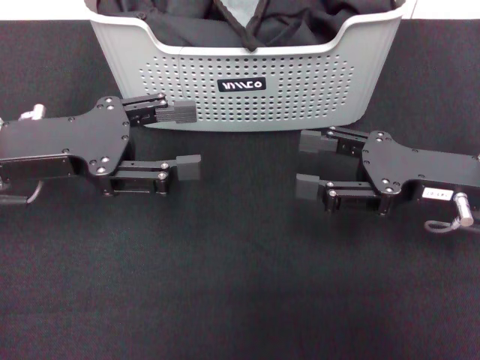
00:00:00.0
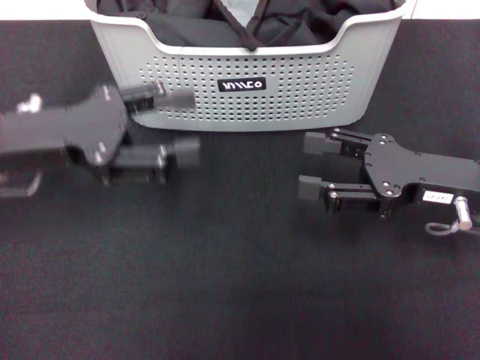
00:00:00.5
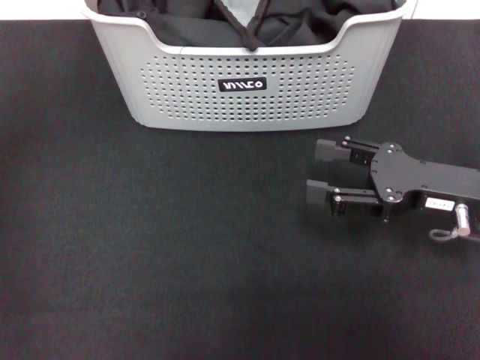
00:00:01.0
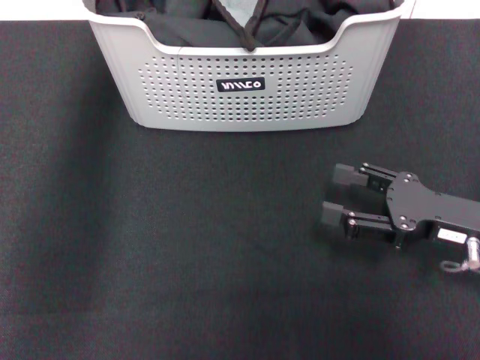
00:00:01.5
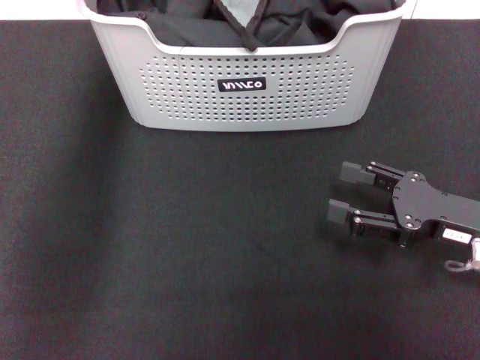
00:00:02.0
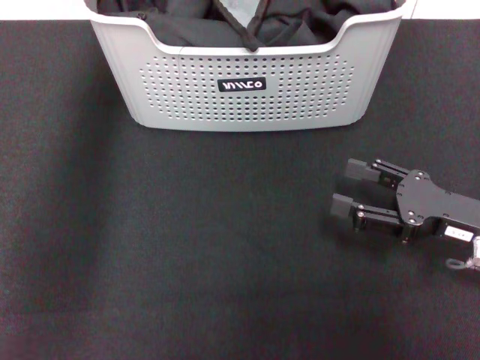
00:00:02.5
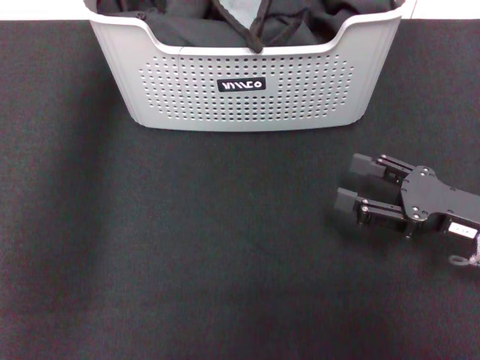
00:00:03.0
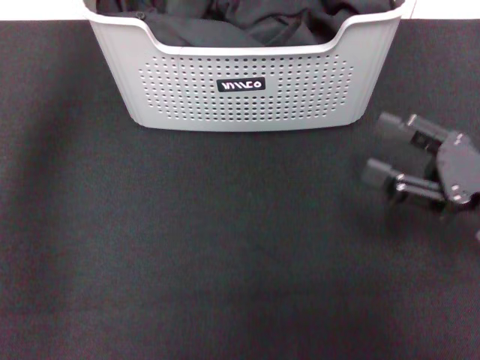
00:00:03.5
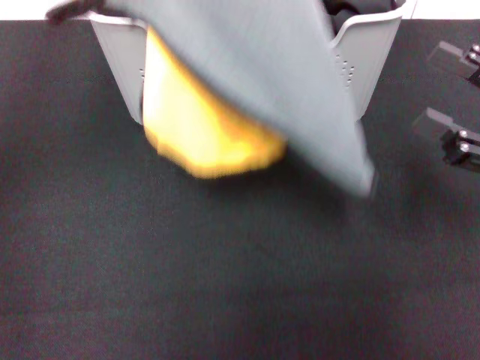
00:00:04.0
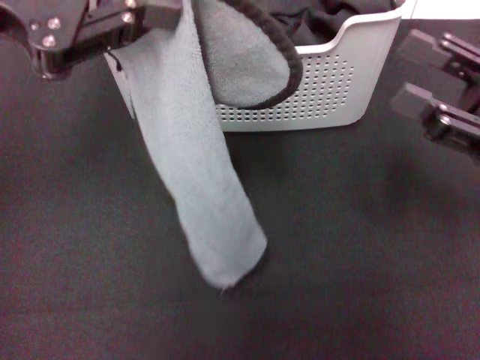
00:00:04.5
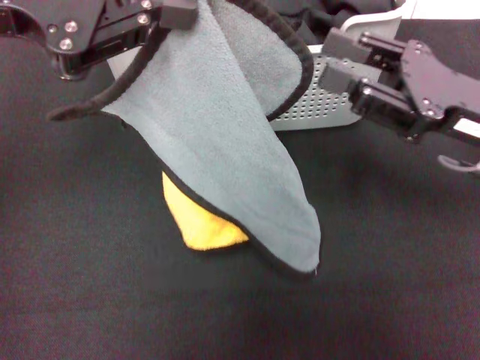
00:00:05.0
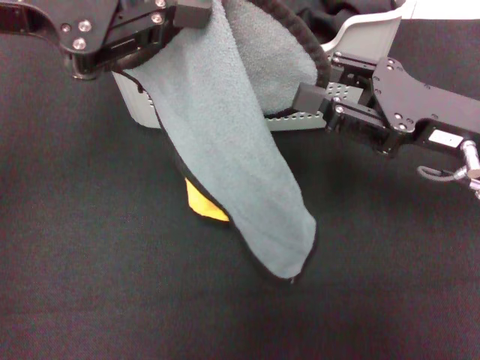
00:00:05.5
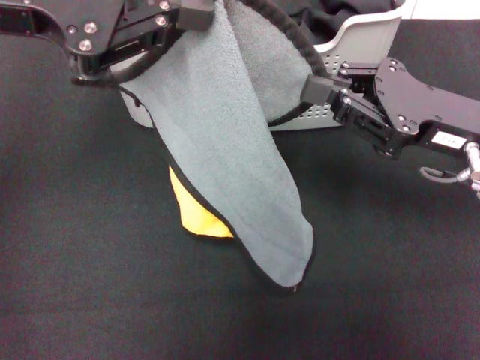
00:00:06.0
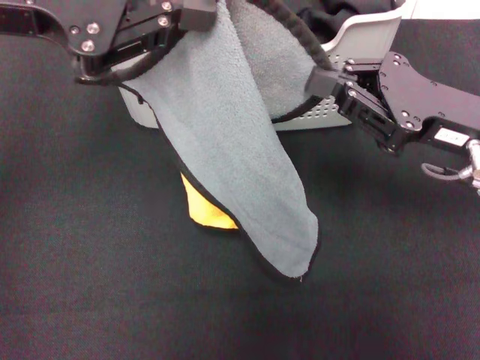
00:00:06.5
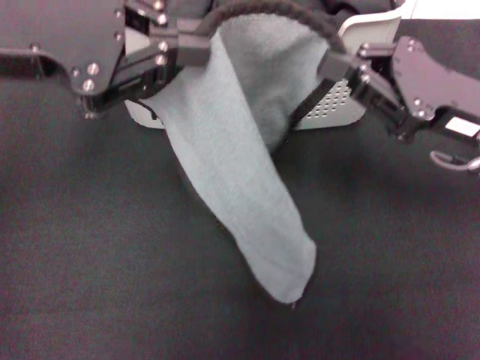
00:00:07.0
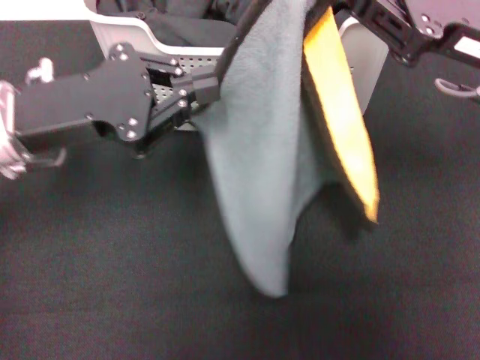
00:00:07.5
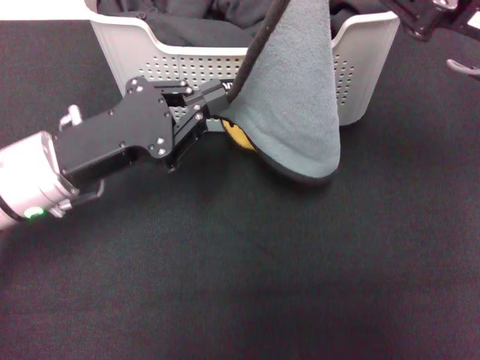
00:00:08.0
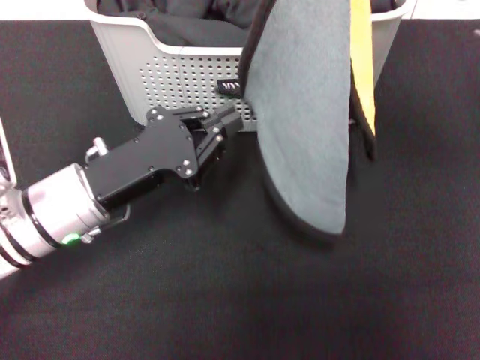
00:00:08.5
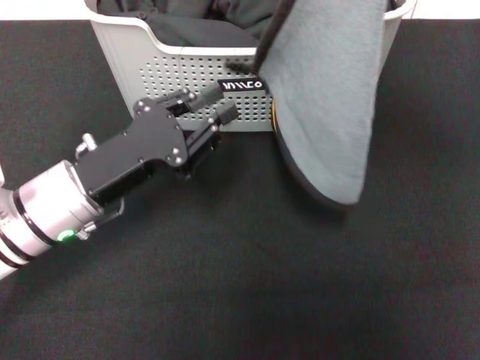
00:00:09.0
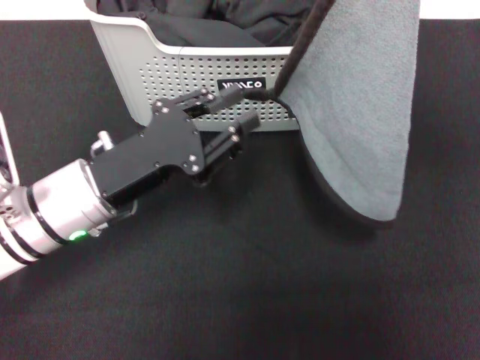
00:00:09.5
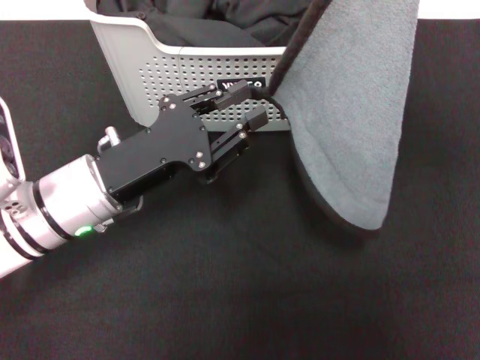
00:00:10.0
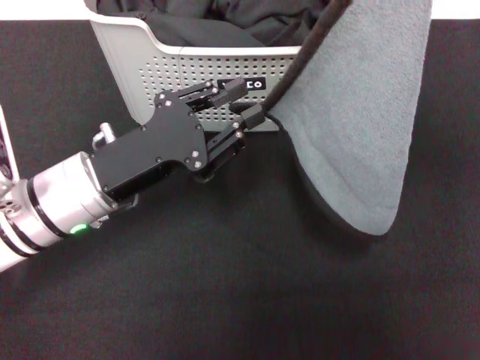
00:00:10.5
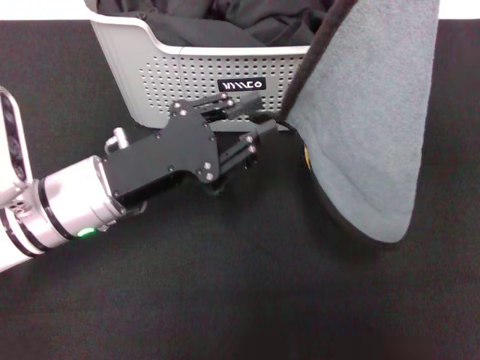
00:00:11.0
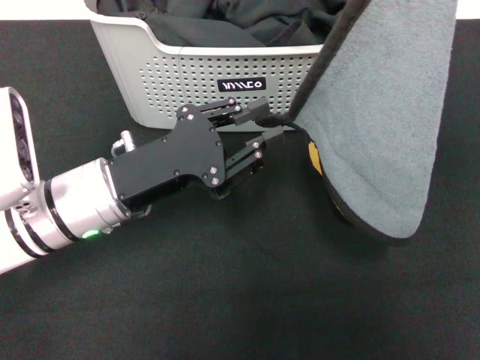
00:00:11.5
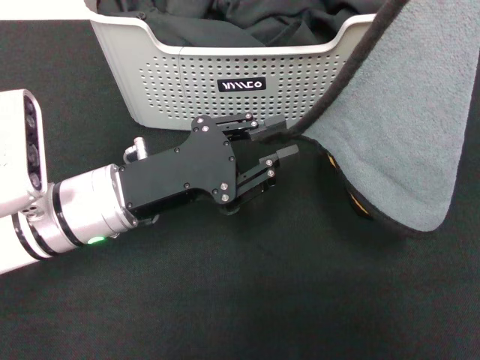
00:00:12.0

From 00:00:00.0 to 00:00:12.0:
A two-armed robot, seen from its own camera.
Task of the whole recording: pick up the towel from the storage box and lay it flat on the black tablecloth.
Step, from 00:00:00.0 to 00:00:03.0: Pick up a towel with the left gripper.
Step, from 00:00:03.5 to 00:00:06.5: Spread the towel flat with the left gripper.
From 00:00:00.0 to 00:00:02.0: The right gripper shifts by about 5 cm. Meanwhile the left gripper shifts approximately 25 cm forward, to the right and upward.
From 00:00:02.0 to 00:00:04.0: The left gripper moves backward, upward and to the left, about 25 cm, and closes. The right gripper moves upward, roughly 5 cm.
From 00:00:04.0 to 00:00:06.0: The left gripper heads downward, covering about 5 cm. Meanwhile the right gripper travels to the left by approximately 10 cm, and closes up.
From 00:00:06.0 to 00:00:08.0: The left gripper travels downward by some 20 cm; the right gripper goes roughly 5 cm upward.
From 00:00:08.0 to 00:00:10.0: The right gripper ends up about 5 cm from where it was. The left gripper opens its fingers.

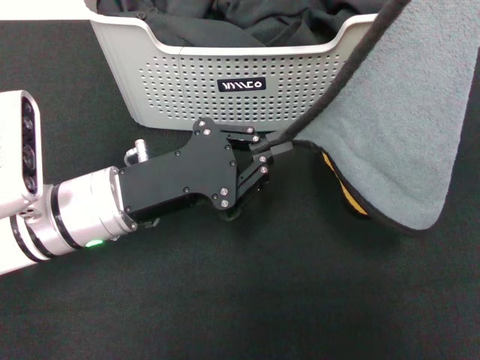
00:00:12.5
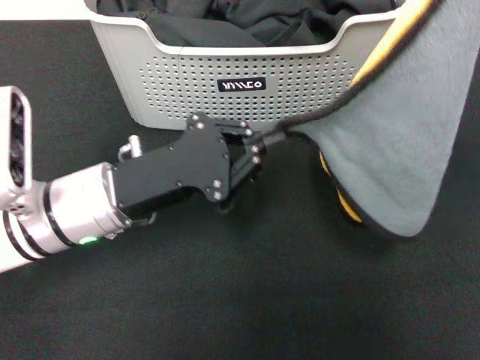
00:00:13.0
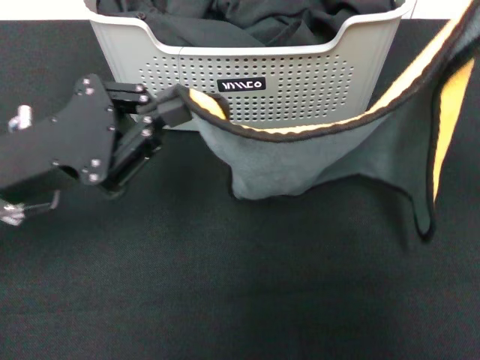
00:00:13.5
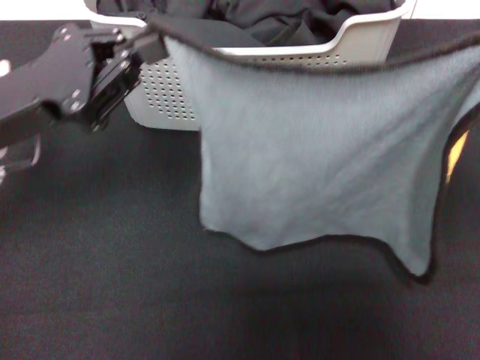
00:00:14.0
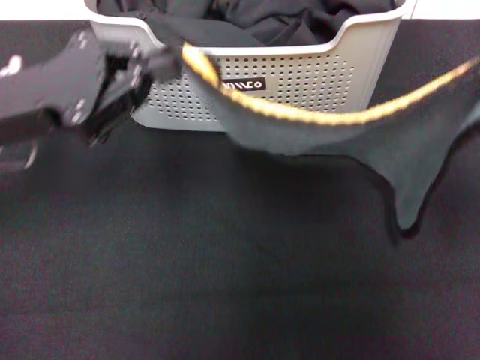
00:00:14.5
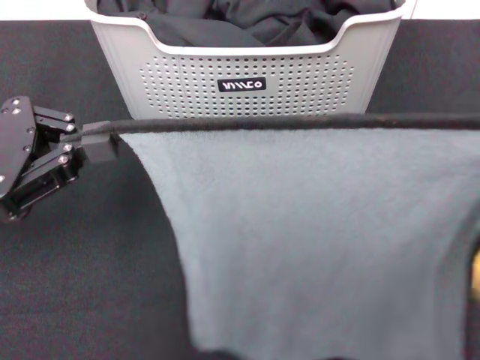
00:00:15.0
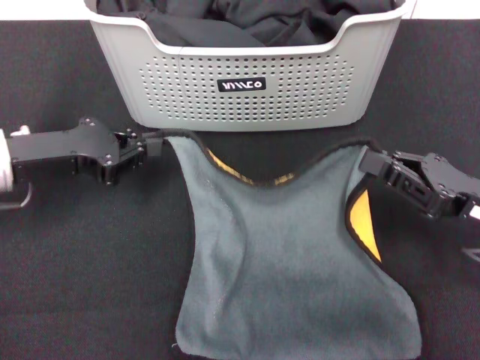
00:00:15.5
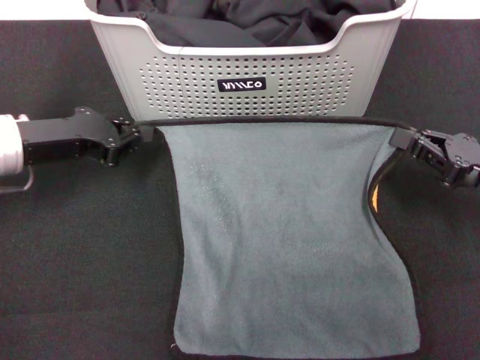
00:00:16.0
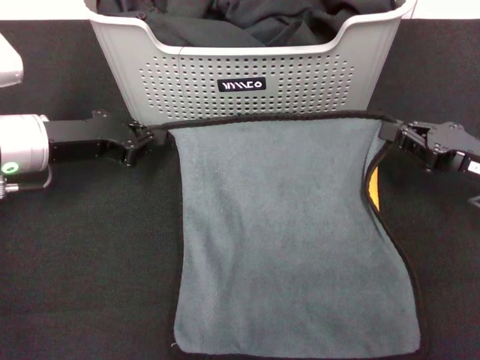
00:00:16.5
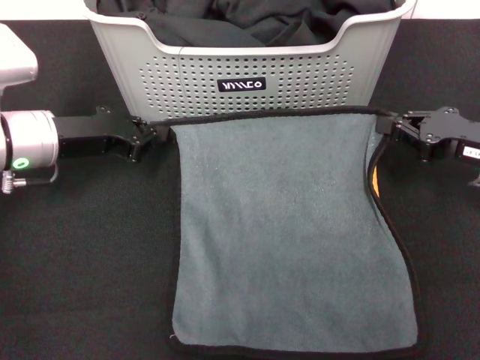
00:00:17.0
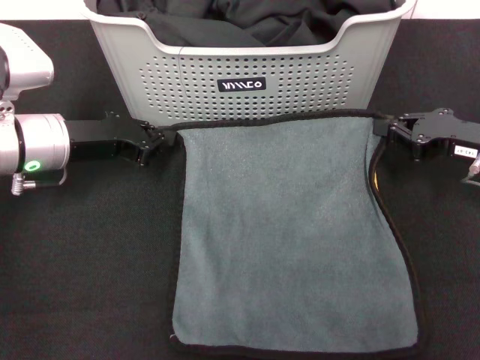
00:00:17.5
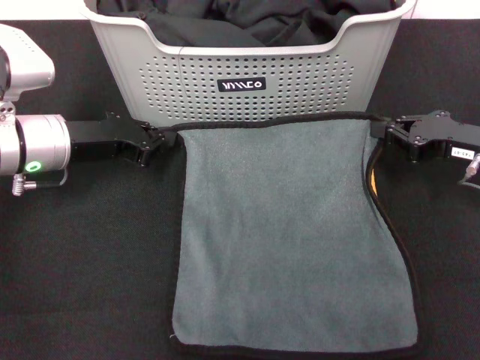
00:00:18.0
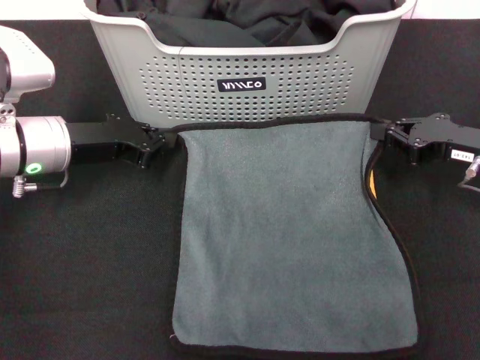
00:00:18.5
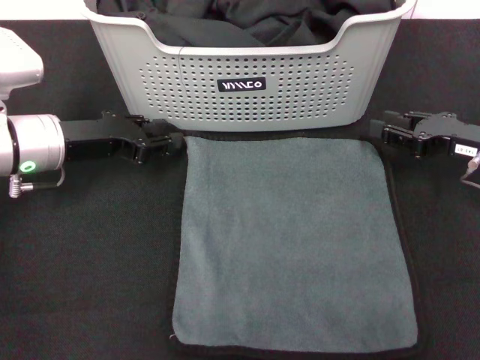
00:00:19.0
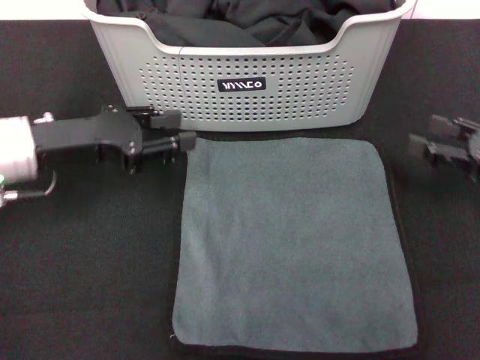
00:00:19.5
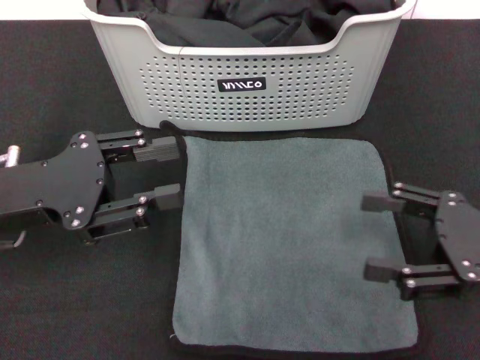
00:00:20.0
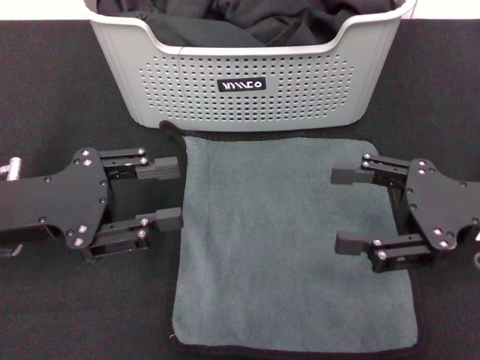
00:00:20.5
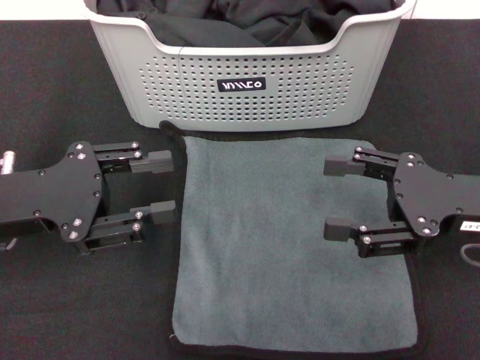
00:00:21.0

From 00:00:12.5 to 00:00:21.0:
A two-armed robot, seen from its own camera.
Task of the whole recording: pick up the towel from the storage box and lay it flat on the black tablecloth.
Step, from 00:00:12.5 to 00:00:18.5: Spread the towel flat with the right gripper.
From 00:00:12.5 to 00:00:14.5: The right gripper is displaced backward and downward by approximately 10 cm. Meanwhile the left gripper is displaced to the left and upward by roughly 10 cm.
From 00:00:14.5 to 00:00:16.5: Both grippers travel together downward and forward, some 10 cm.
From 00:00:16.5 to 00:00:19.0: The grippers move only a little.
From 00:00:19.0 to 00:00:21.0: The two grippers go about 10 cm backward. The right gripper opens up. Meanwhile the left gripper opens its fingers.
